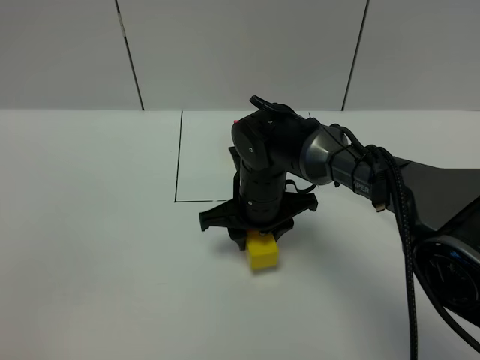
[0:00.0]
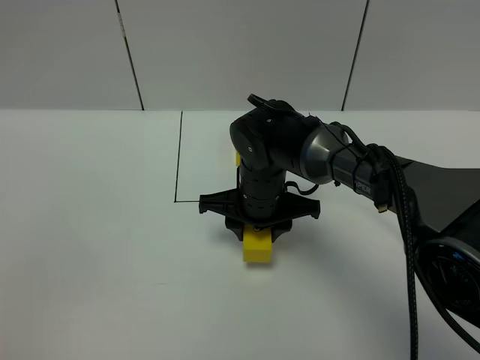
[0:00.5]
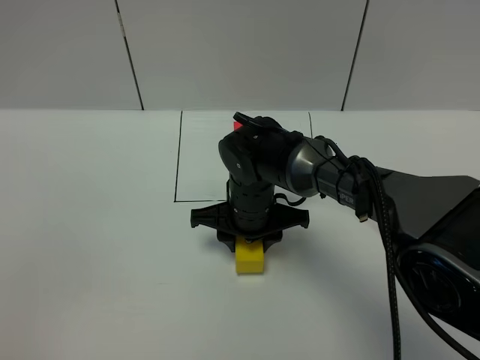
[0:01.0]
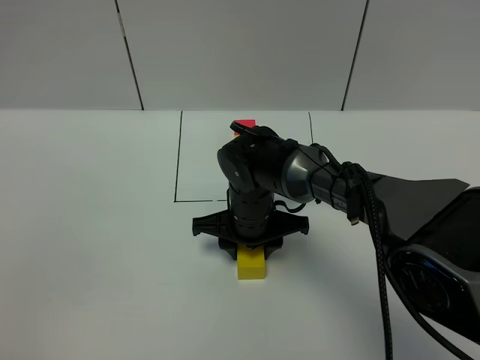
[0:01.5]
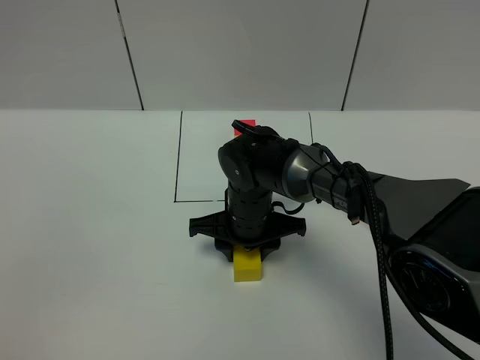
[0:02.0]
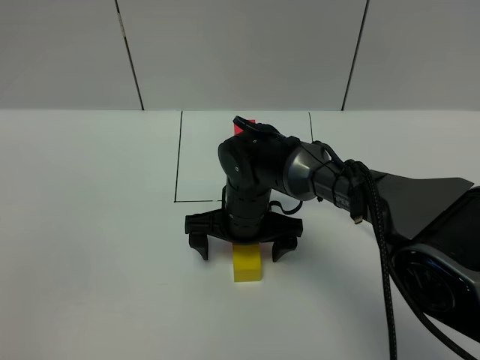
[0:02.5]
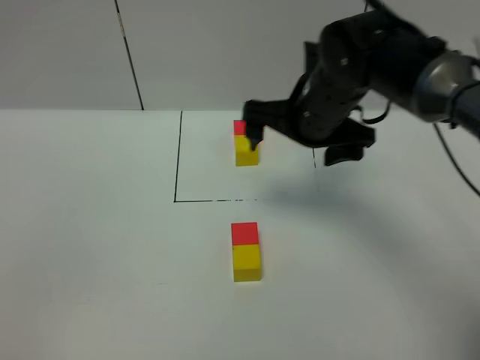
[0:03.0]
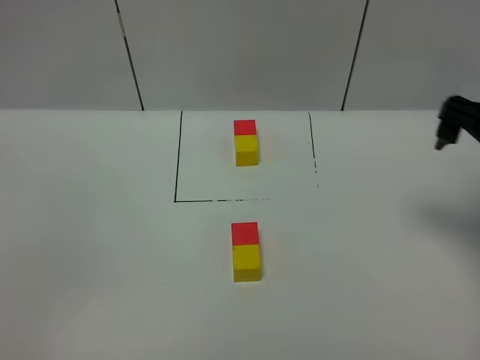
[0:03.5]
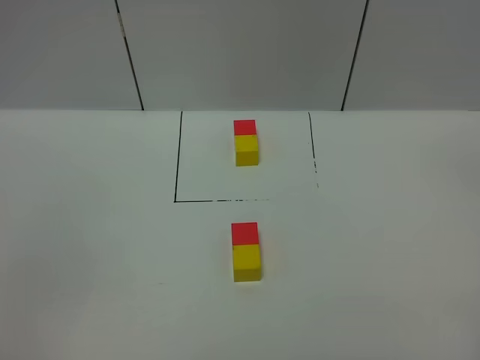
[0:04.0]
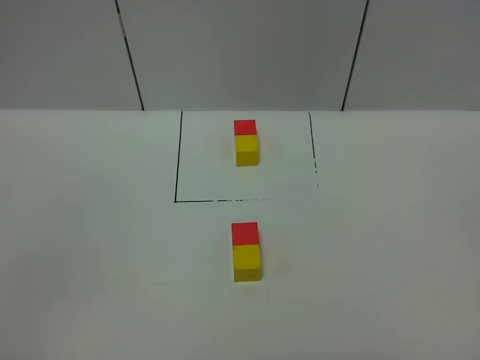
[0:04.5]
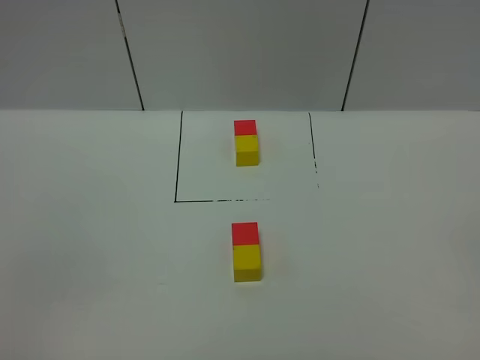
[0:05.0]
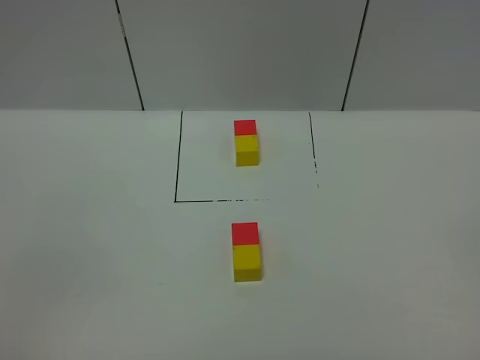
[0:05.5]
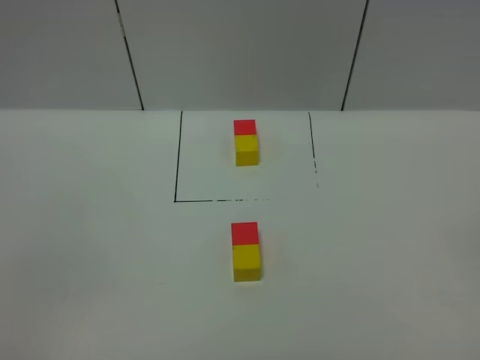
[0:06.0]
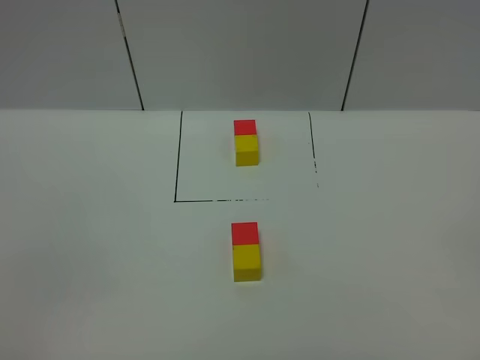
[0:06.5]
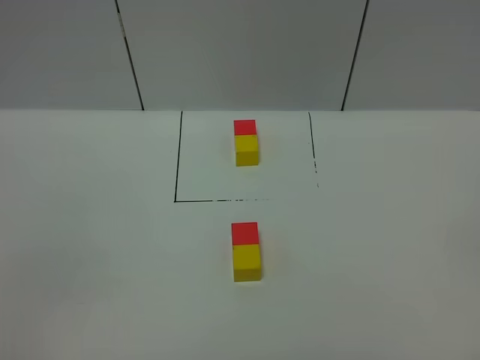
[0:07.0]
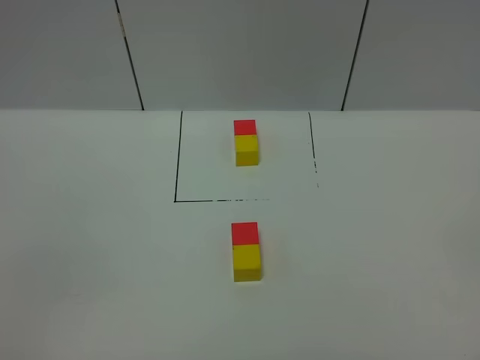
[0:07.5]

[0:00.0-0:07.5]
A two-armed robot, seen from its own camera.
Task of the whole recording: According to the building block template in front, assemble the scattered blocks together.
Step, 0:00.0 to 0:03.0: Adjust the pose of the building blocks.
0:00.0 to 0:02.0: The grippers move only a little.
0:02.0 to 0:04.0: The right gripper heads to the right, backward and upward, covering approximately 50 cm, and opens up.
0:05.5 to 0:07.5: Neither gripper changes place.
